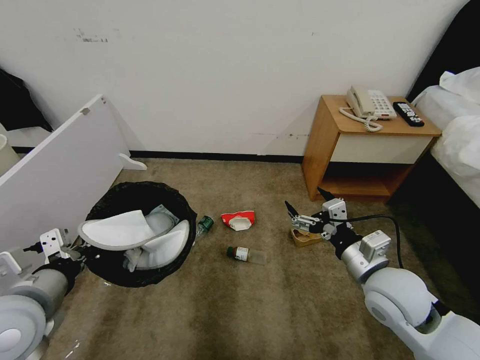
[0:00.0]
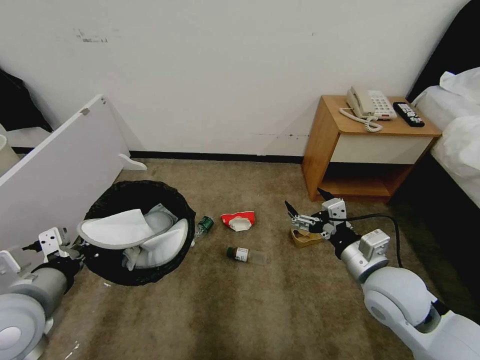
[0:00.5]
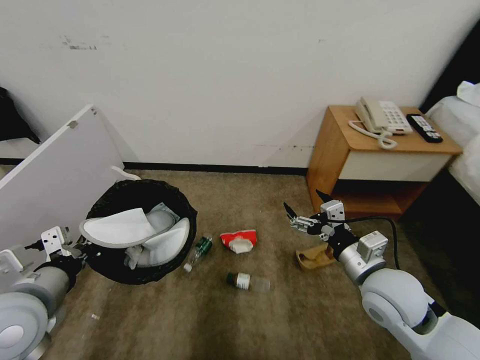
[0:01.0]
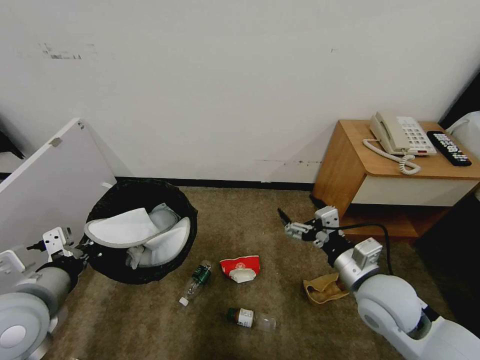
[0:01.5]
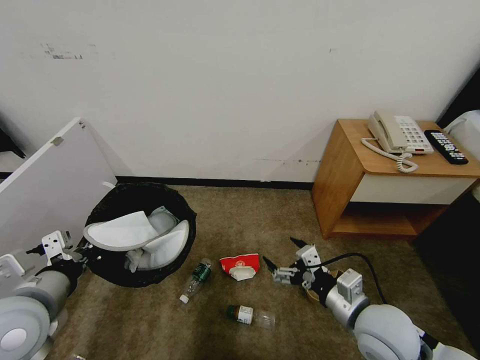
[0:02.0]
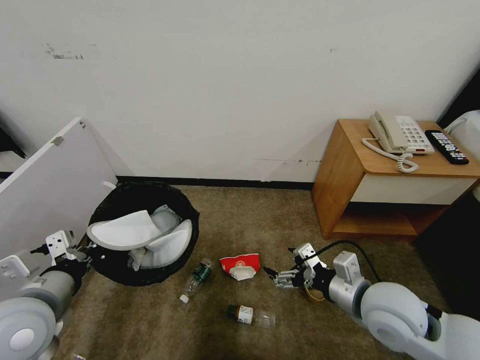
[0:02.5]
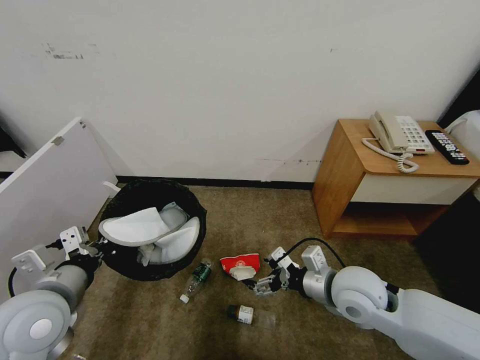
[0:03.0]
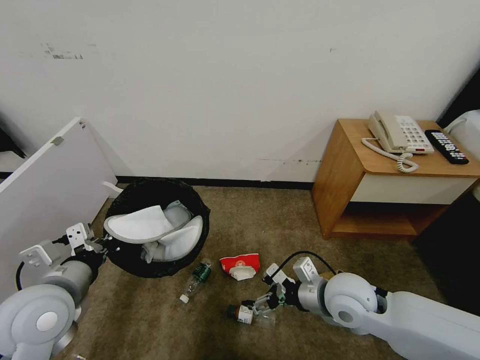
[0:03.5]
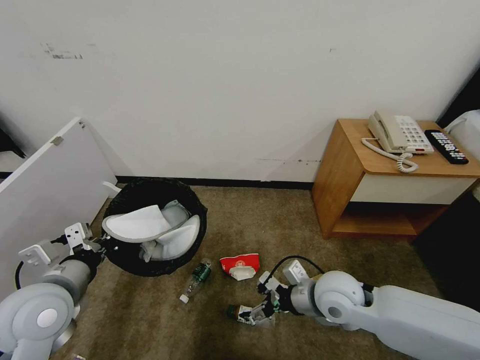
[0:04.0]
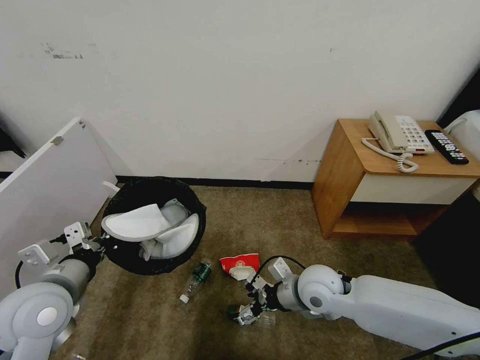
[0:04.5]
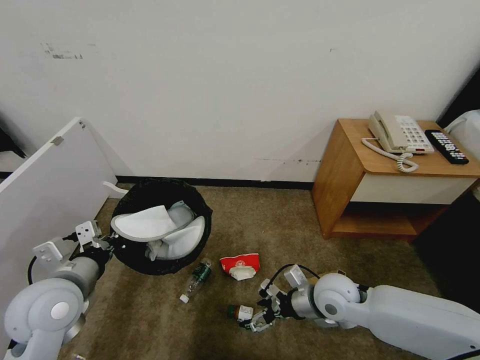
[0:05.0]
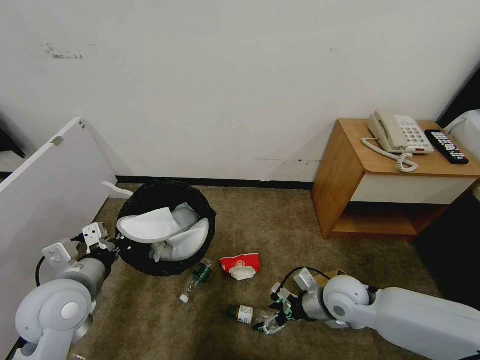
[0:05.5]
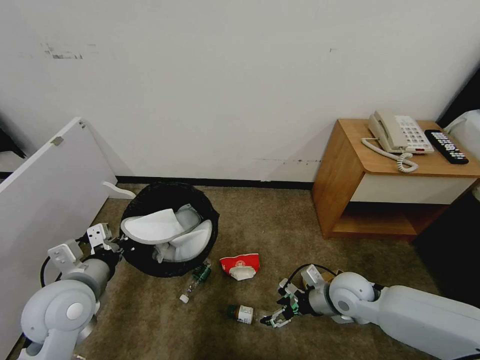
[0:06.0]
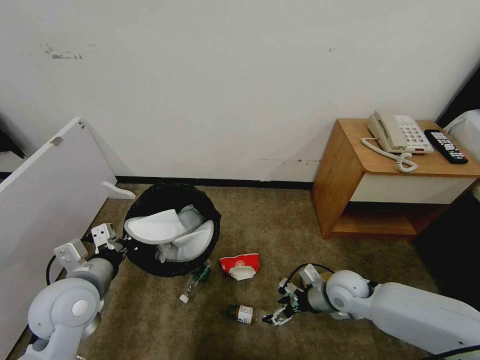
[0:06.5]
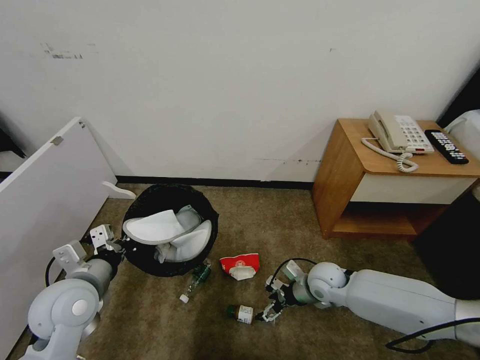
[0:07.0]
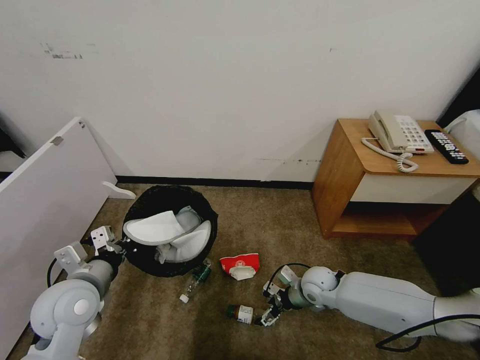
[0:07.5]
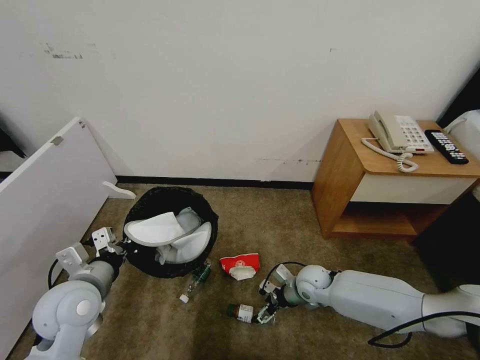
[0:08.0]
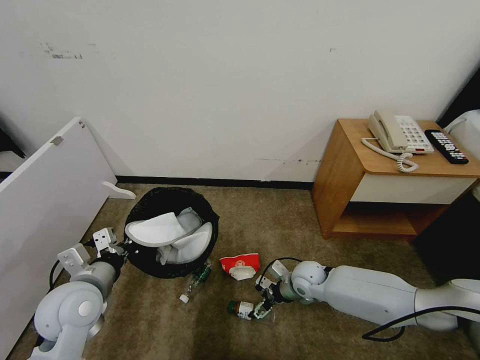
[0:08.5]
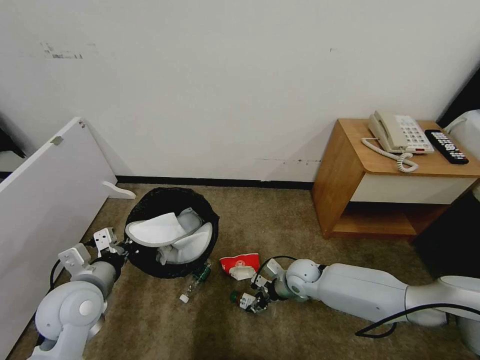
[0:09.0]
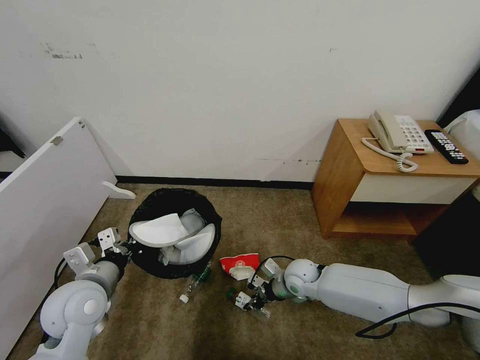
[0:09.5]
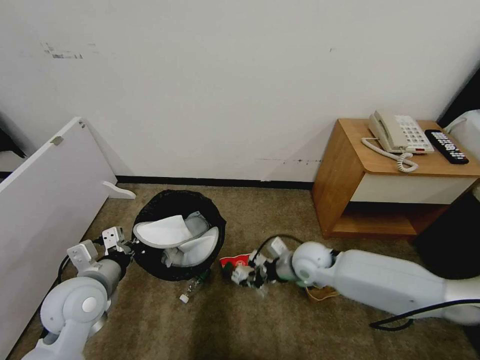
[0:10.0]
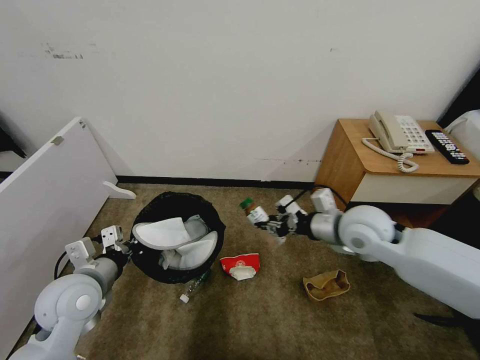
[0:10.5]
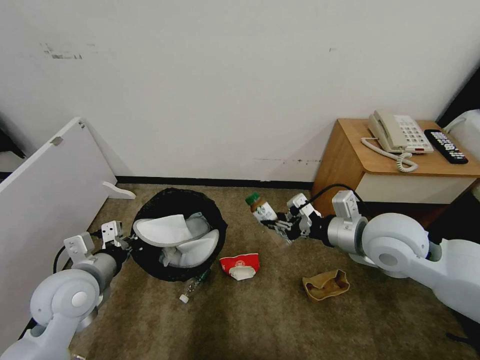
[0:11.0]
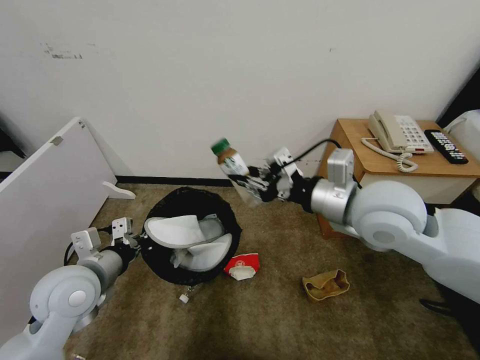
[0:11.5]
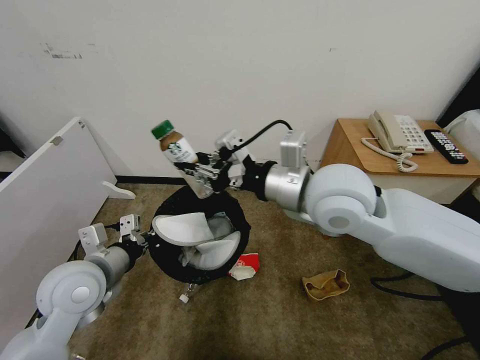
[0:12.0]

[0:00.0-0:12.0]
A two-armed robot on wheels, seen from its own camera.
Task of the whole recording: Pick up the trash bin and place the garbage on the floor into it.
0.0 to 2.0 s: The right gripper shifts by roughly 5 cm.
2.0 to 4.0 s: The right gripper goes roughly 10 cm forward.
4.0 to 6.0 s: The right gripper moves downward and to the right, approximately 10 cm.
6.0 to 8.0 s: The right gripper moves downward, forward and to the left, approximately 10 cm.
8.0 to 10.0 s: The right gripper is displaced upward by approximately 10 cm, and closes.
10.0 to 12.0 s: The right gripper is displaced upward by about 25 cm.

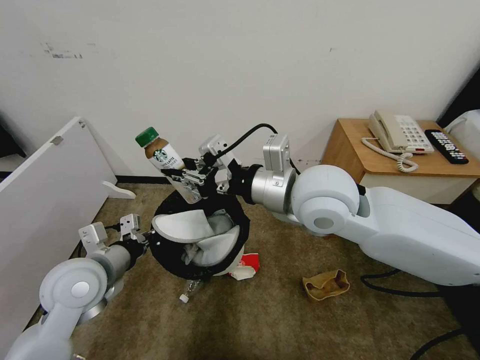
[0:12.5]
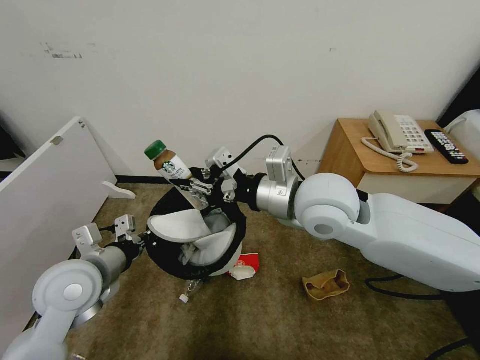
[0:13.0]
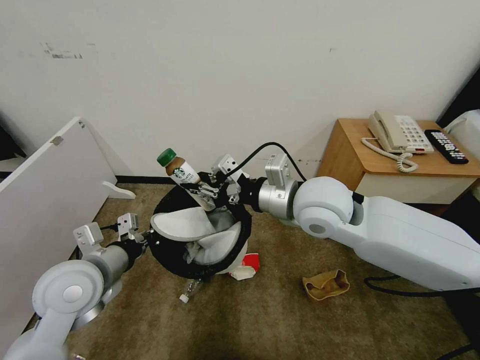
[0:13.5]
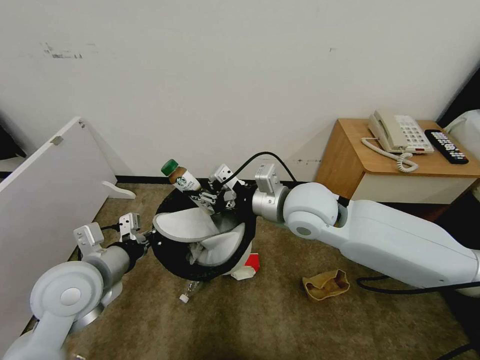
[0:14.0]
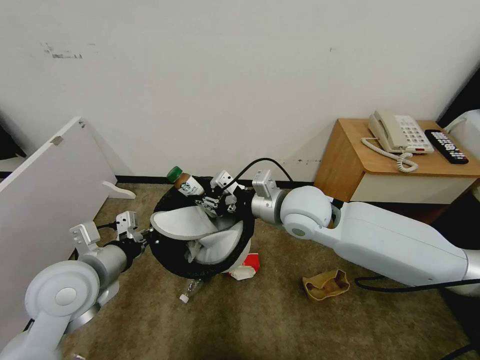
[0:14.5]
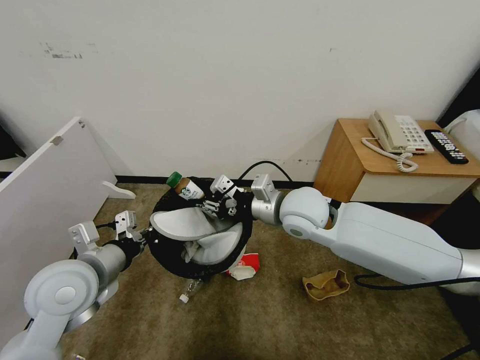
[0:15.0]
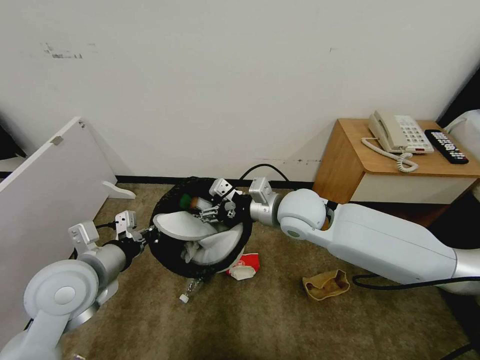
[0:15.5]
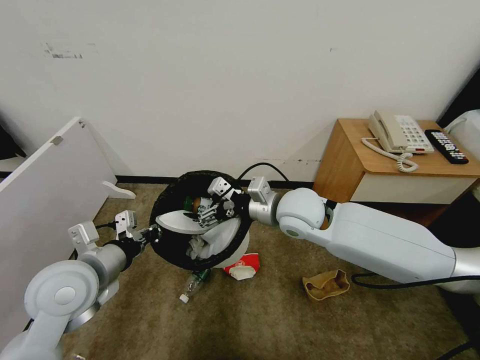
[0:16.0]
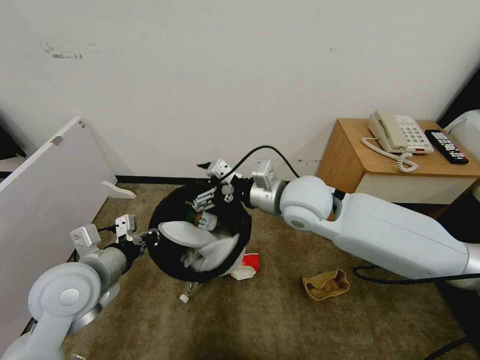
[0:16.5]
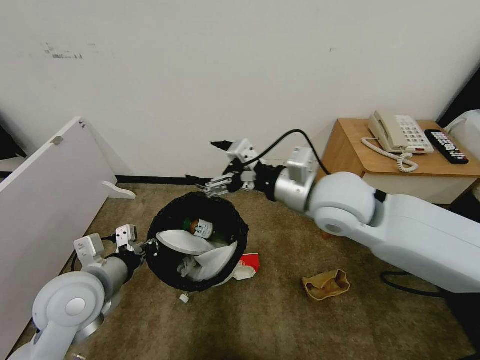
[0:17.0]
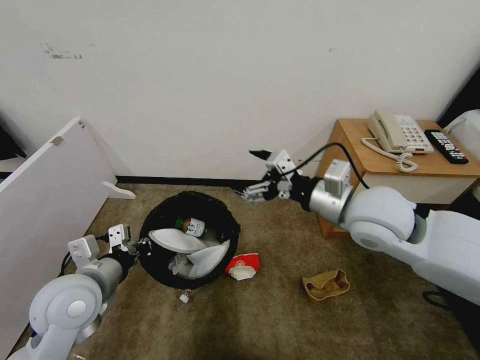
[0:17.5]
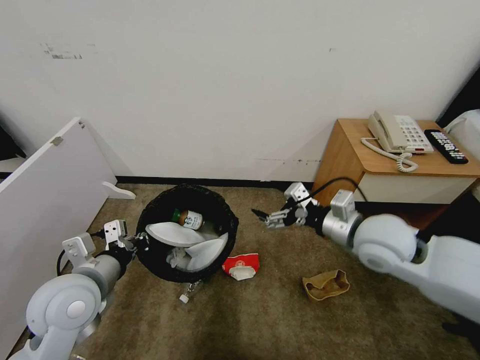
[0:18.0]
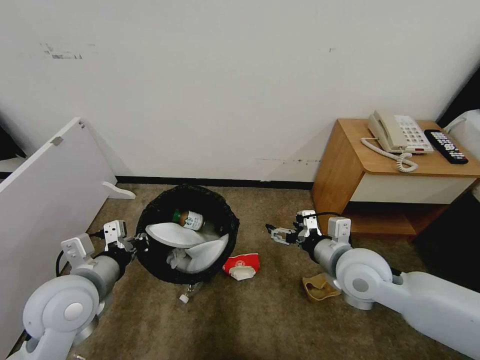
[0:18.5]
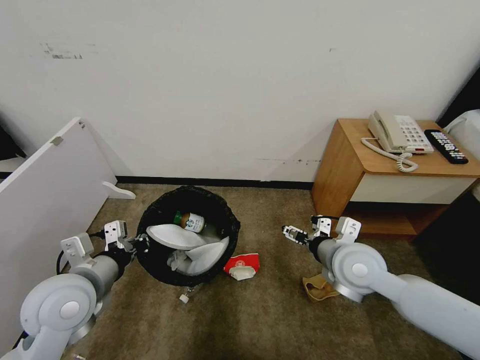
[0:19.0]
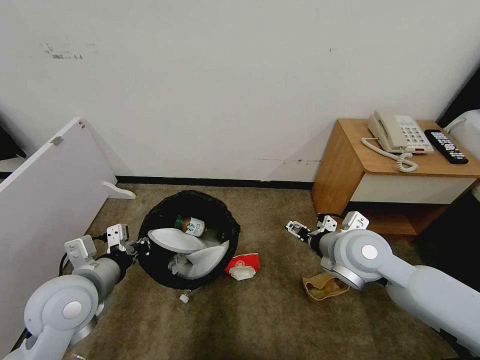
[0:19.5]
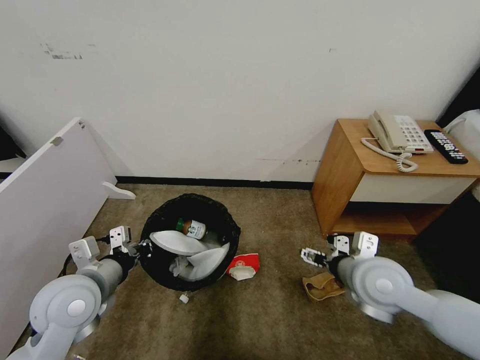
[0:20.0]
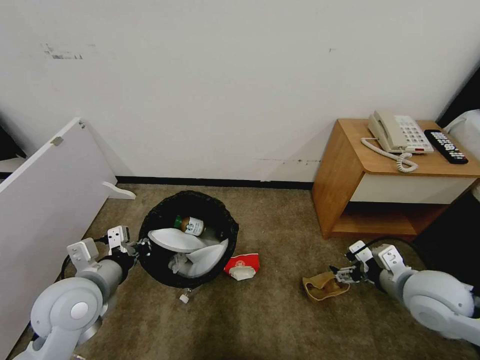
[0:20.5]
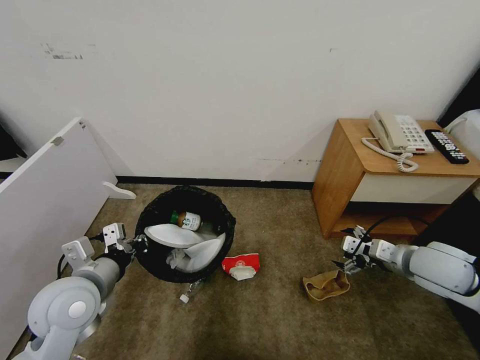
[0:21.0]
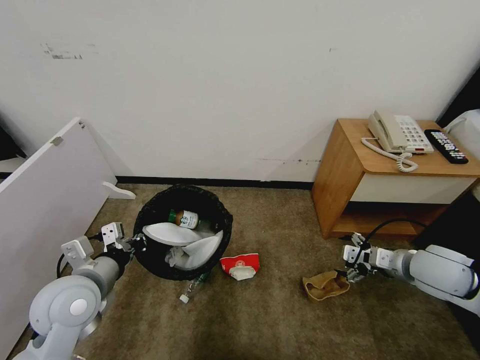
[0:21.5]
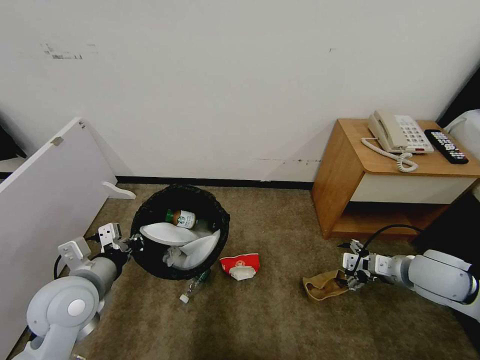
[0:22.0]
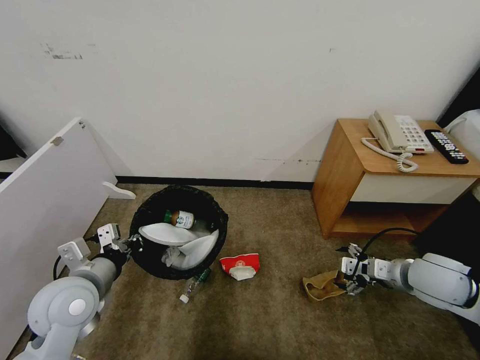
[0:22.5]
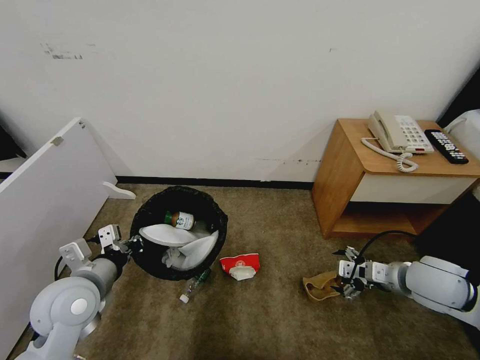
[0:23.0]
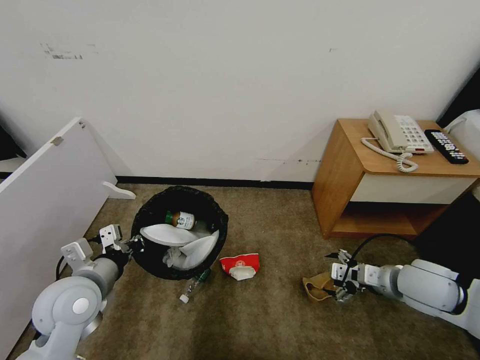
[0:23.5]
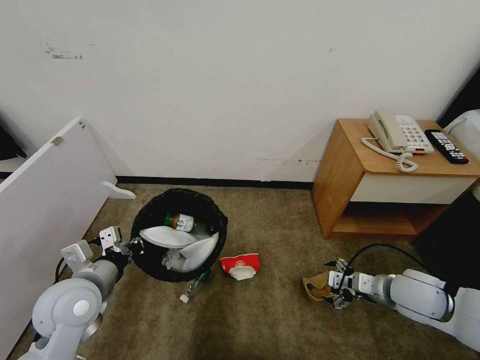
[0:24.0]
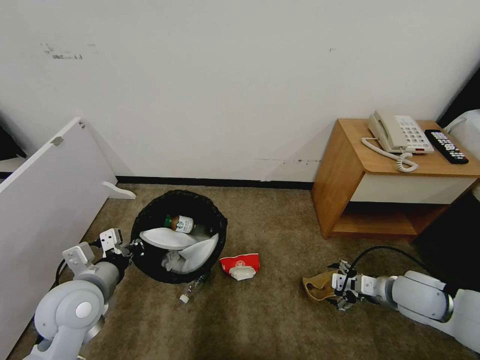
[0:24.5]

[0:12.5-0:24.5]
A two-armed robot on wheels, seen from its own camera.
Task of the whole recording: Pick up the trash bin and place the garbage on the floor into it.
12.5 to 14.5 s: The right gripper travels downward and forward by about 10 cm.
14.5 to 16.5 s: The right gripper opens.
16.5 to 18.5 s: The right gripper goes approximately 20 cm to the right, downward and backward.
18.5 to 20.5 s: The right gripper goes about 10 cm to the right.
20.5 to 22.5 s: The right gripper moves about 5 cm.
22.5 to 24.5 s: The right gripper shifts approximately 5 cm downward.

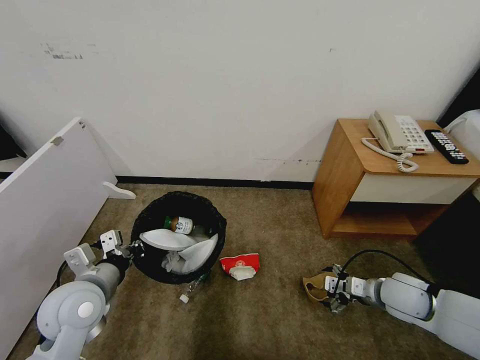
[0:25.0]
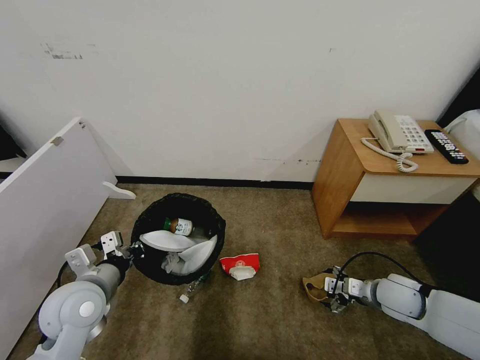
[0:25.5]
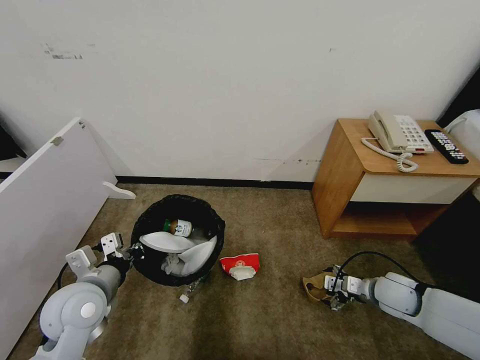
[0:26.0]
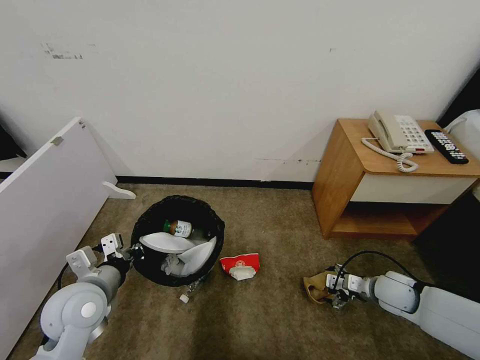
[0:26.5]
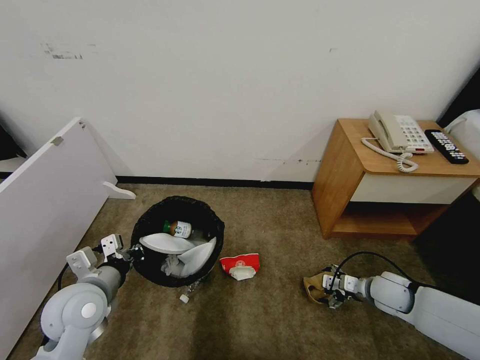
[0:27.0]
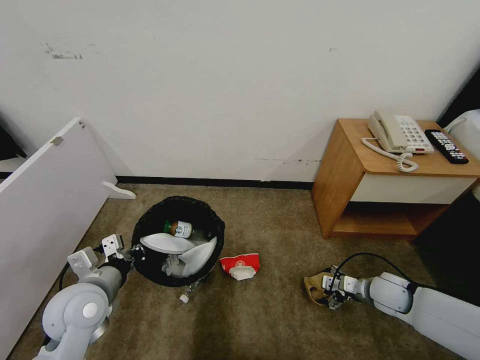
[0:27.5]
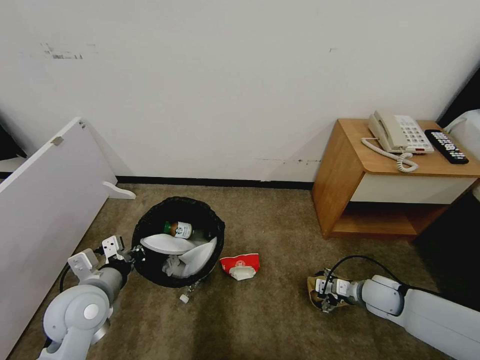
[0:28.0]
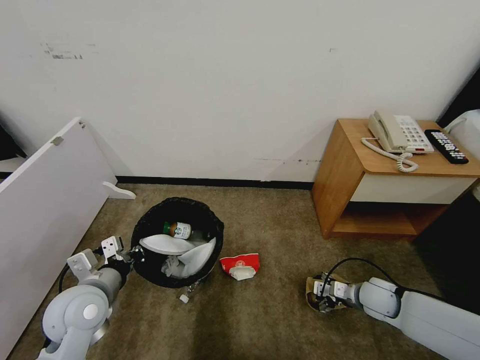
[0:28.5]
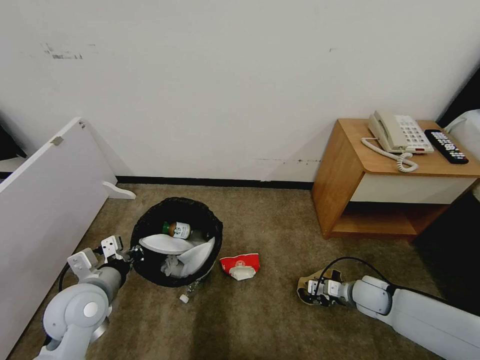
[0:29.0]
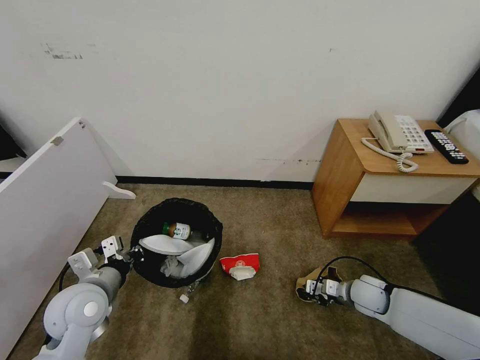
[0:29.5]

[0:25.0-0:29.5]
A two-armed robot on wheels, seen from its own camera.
Task of the whole recording: Pick up the trash bin and place the garbage on the floor into it.
25.0 to 27.0 s: The right gripper shifts some 5 cm downward.
27.0 to 29.5 s: The right gripper changes place by about 5 cm, and closes.
